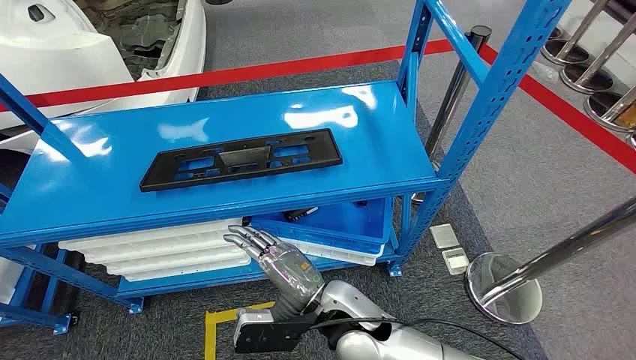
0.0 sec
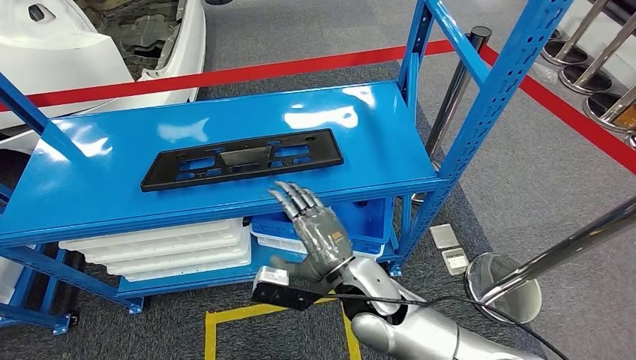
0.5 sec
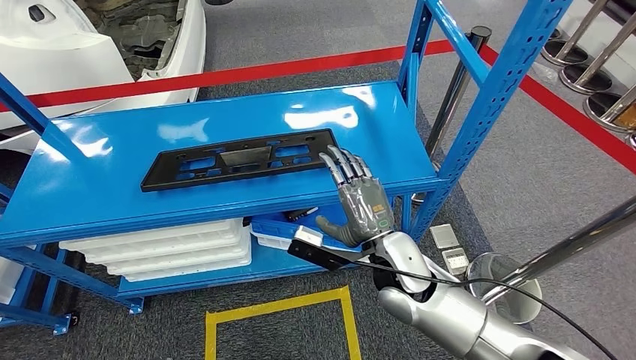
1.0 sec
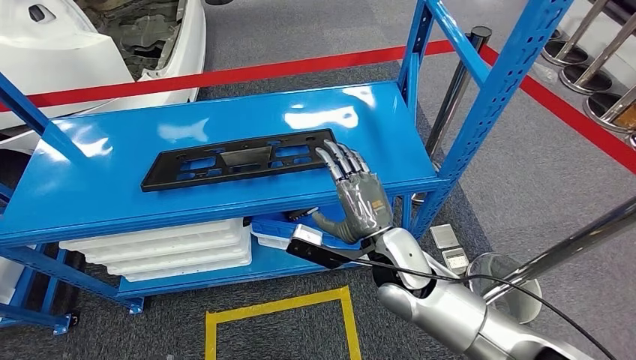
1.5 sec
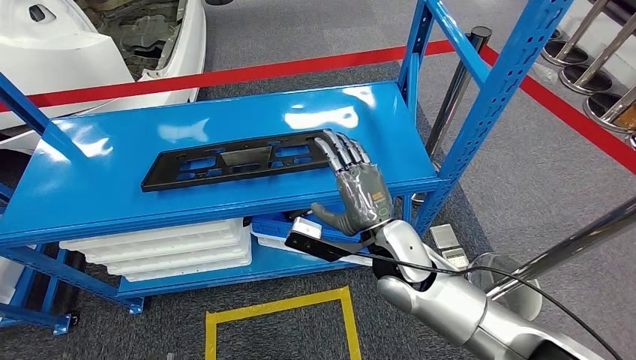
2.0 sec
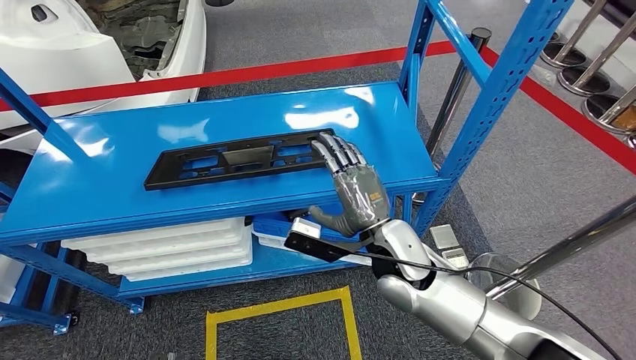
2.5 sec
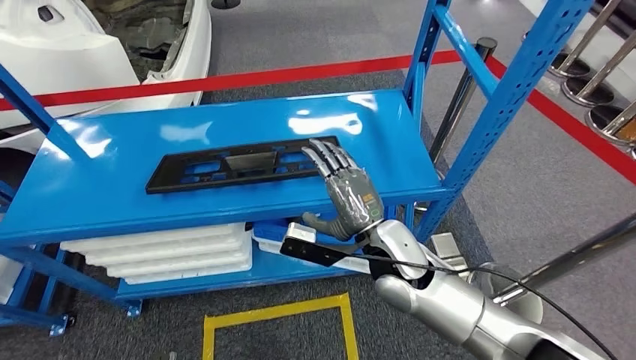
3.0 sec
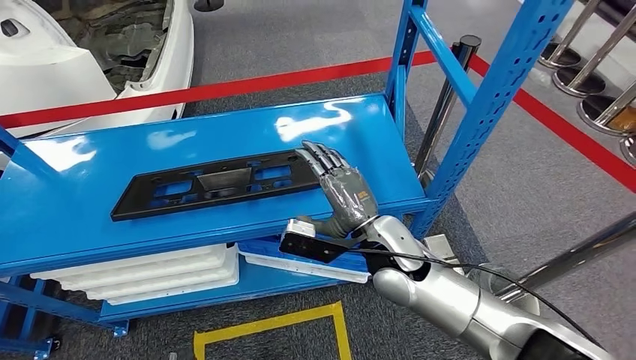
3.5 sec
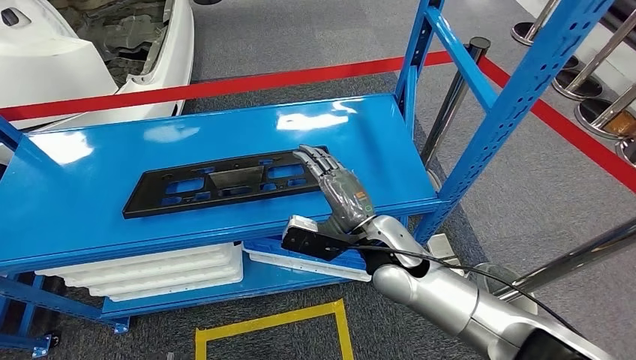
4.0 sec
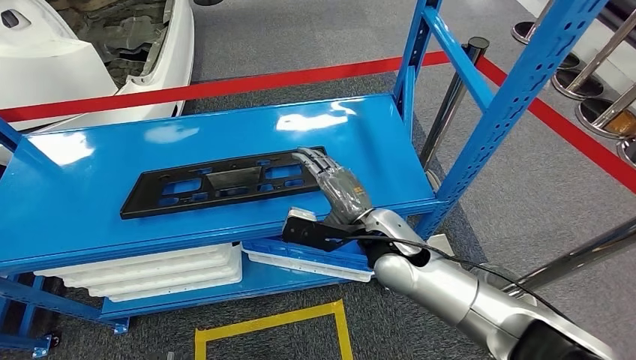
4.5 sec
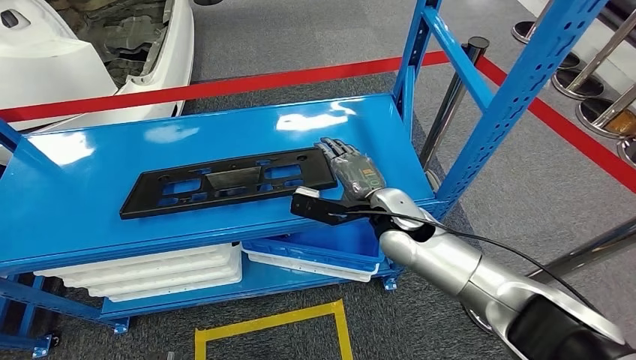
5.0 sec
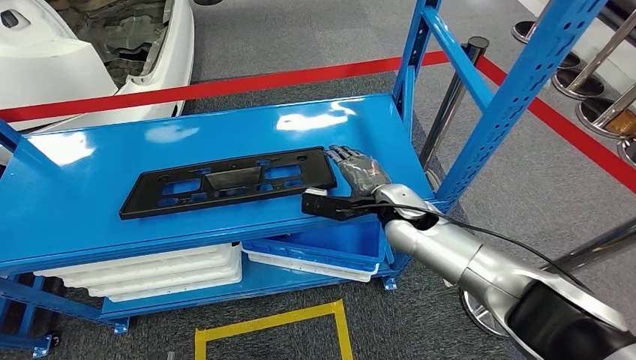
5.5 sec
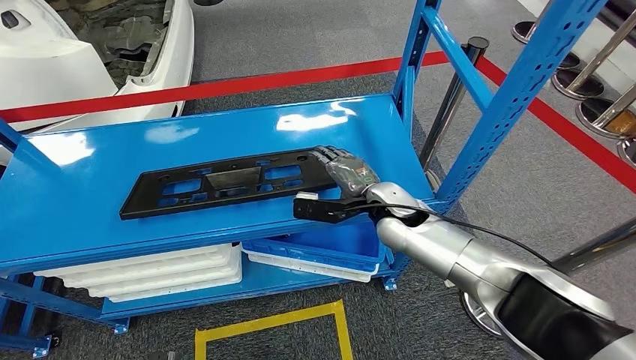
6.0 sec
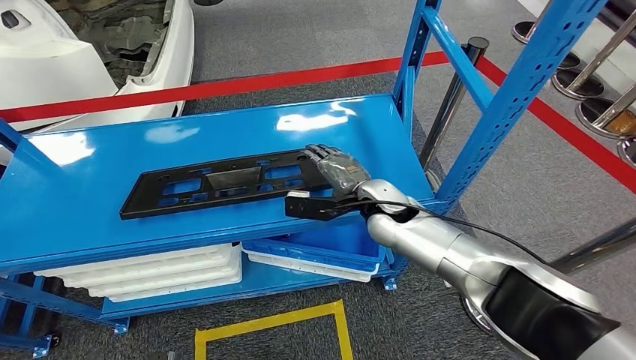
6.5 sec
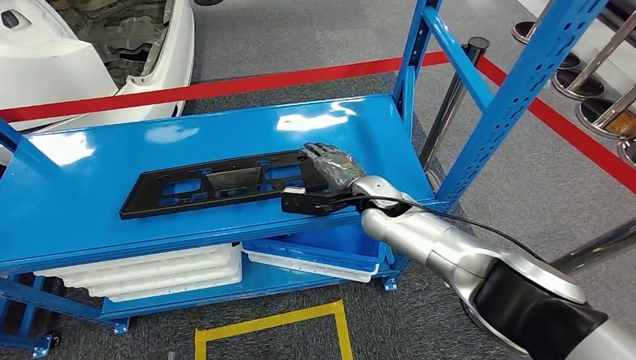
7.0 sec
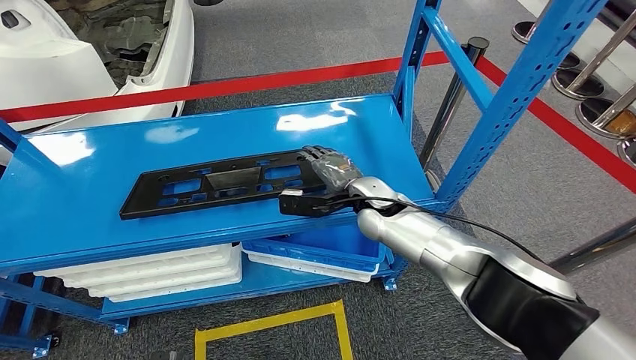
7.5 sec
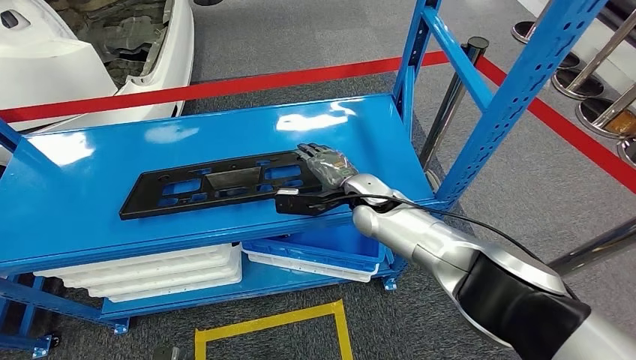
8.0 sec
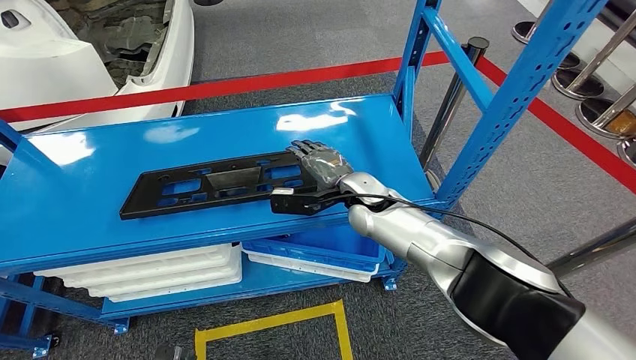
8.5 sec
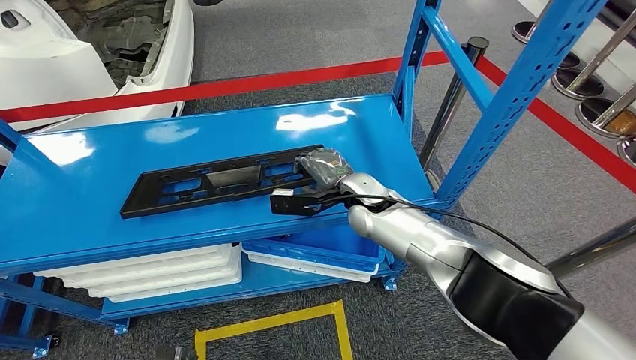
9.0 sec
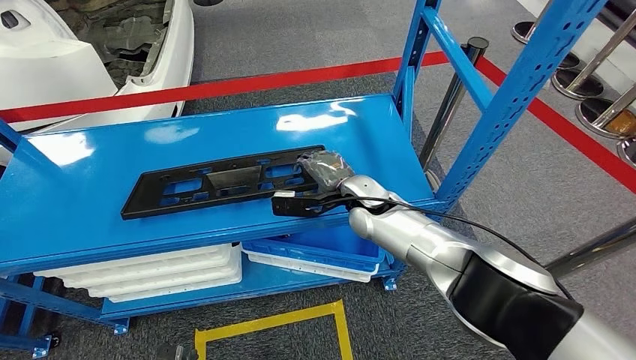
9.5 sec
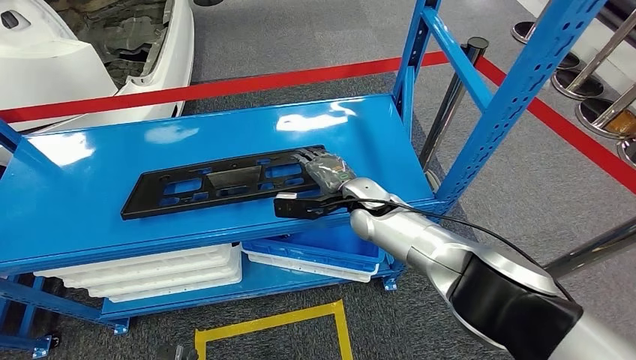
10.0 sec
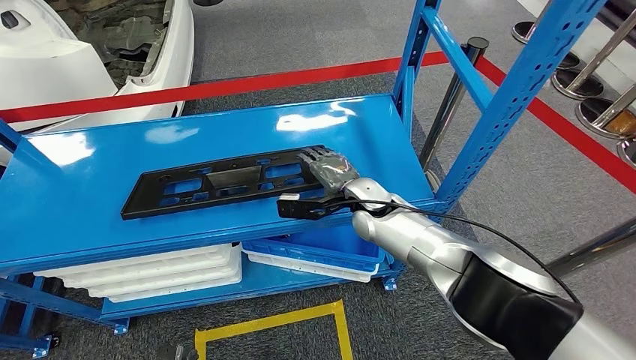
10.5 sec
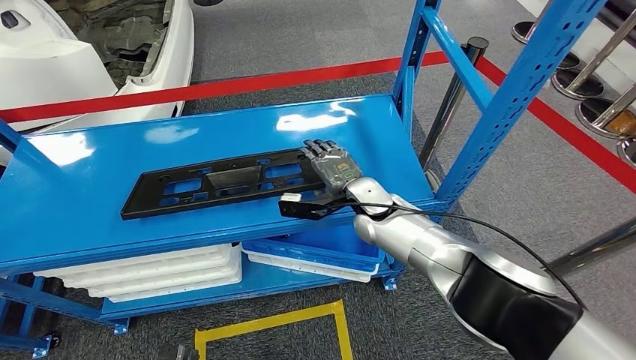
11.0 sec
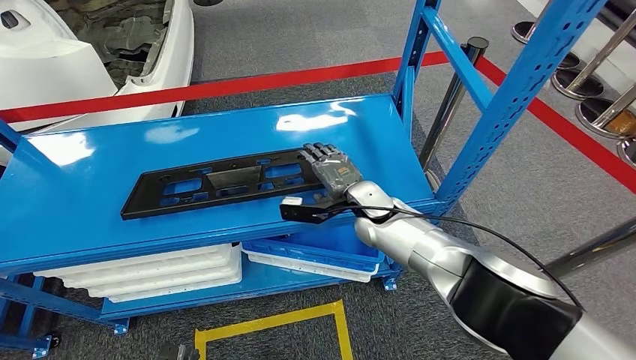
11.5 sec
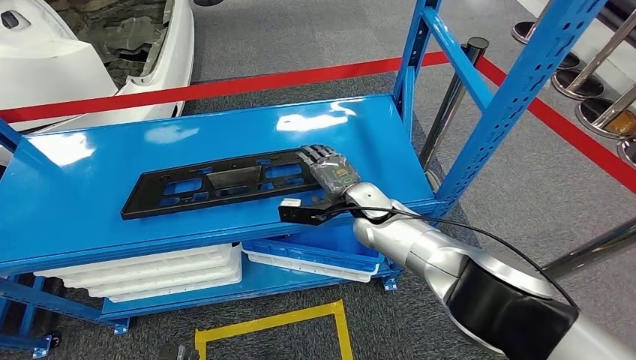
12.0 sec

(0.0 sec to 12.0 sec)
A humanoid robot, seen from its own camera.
4.0 sec - 6.0 sec: The right hand travels forward by roughly 10 cm.
6.0 sec - 8.0 sec: The right hand changes place by some 5 cm.
8.0 sec - 10.0 sec: Neither hand changes place.
10.0 sec - 12.0 sec: There are only small adjustments of the hands.

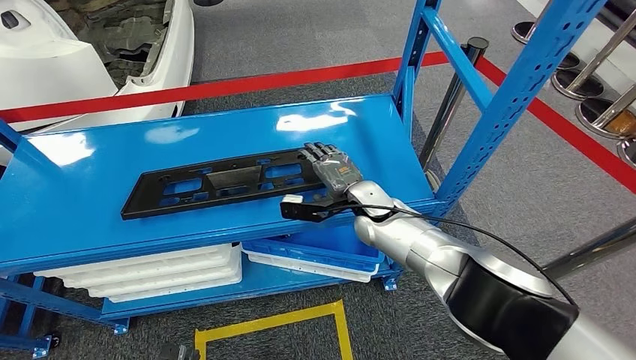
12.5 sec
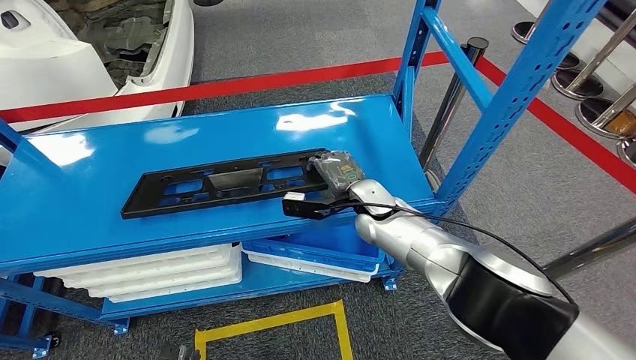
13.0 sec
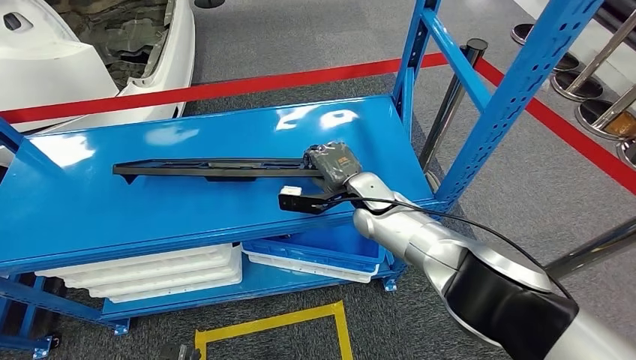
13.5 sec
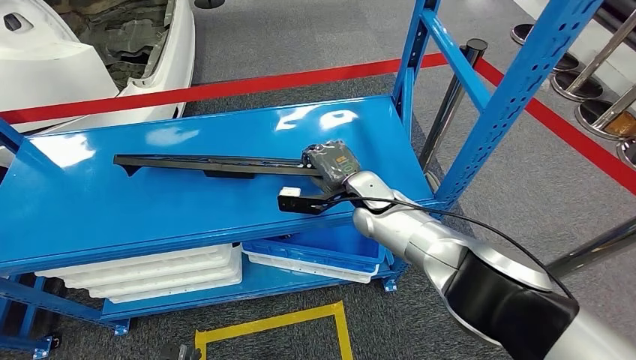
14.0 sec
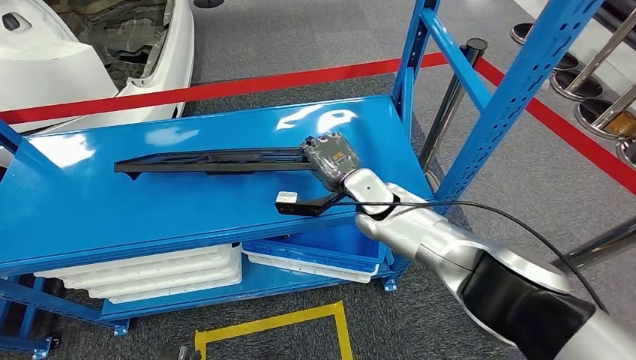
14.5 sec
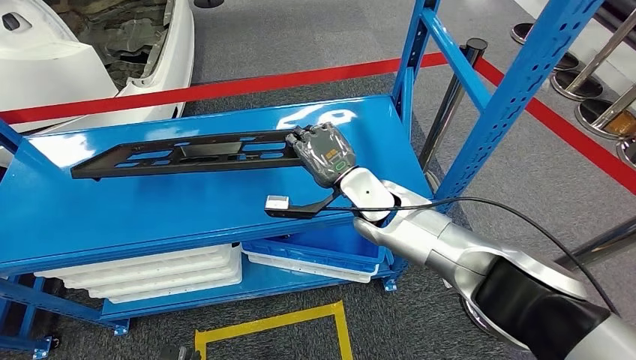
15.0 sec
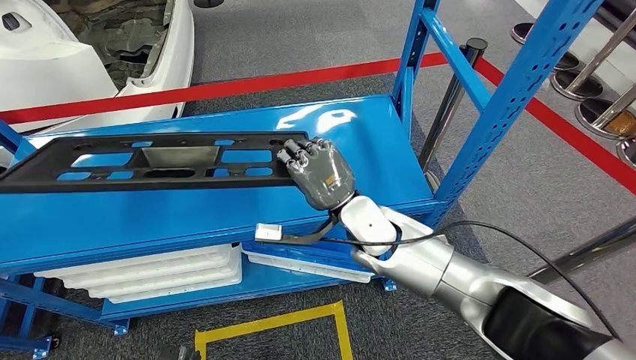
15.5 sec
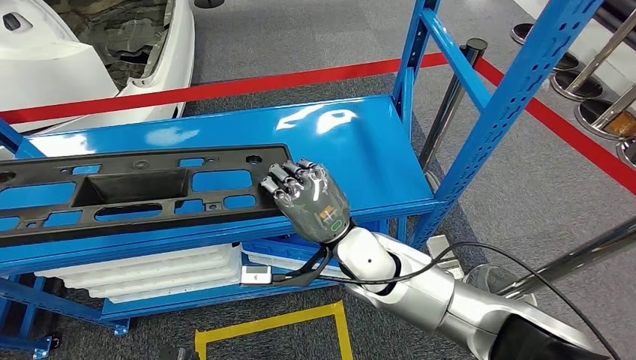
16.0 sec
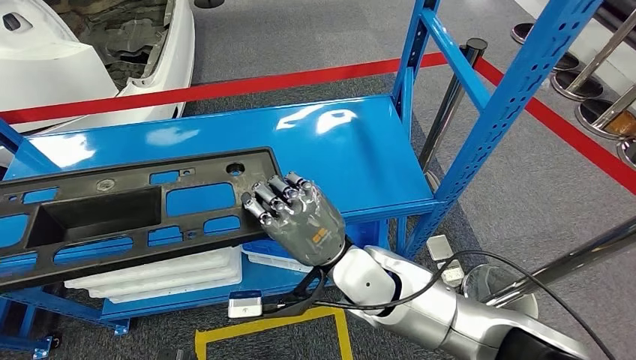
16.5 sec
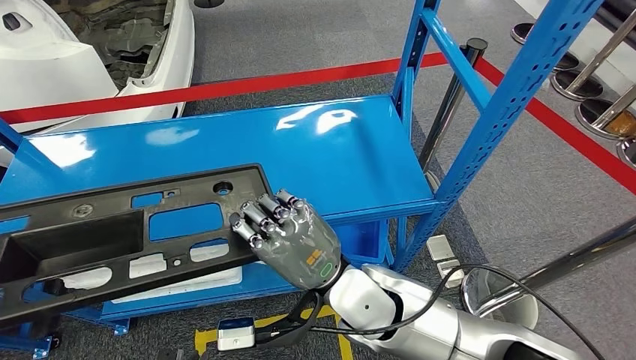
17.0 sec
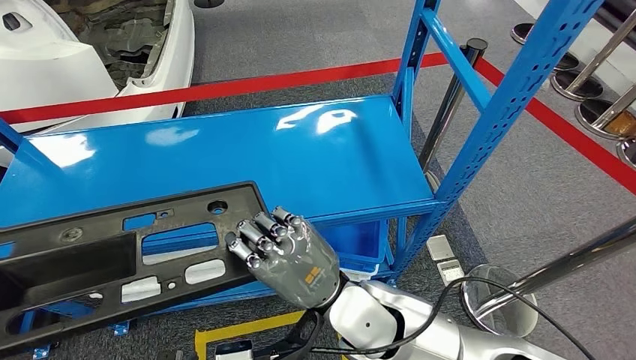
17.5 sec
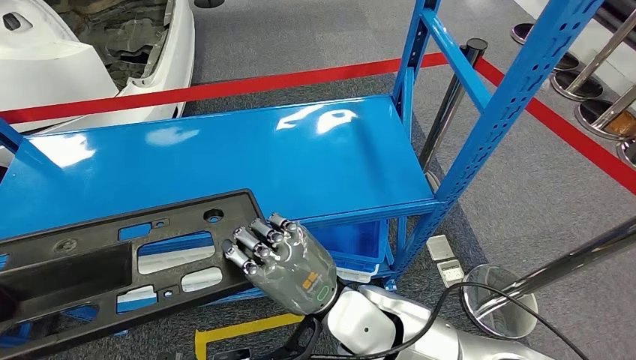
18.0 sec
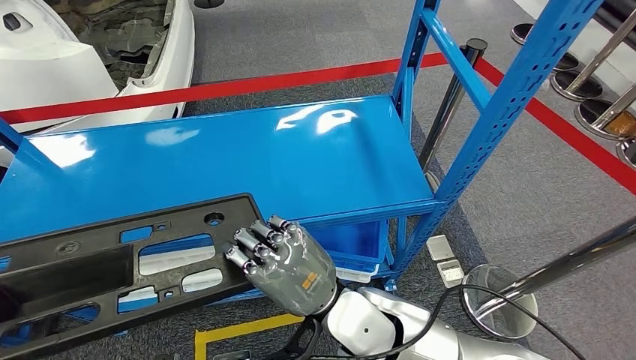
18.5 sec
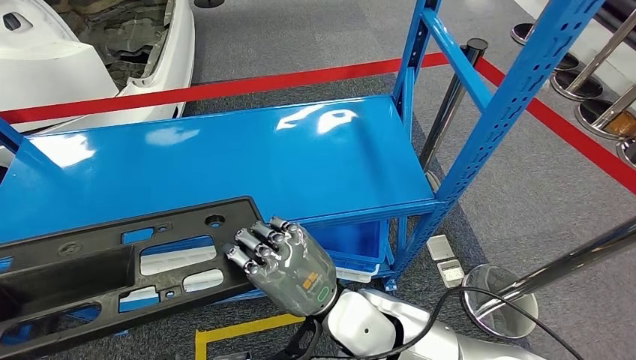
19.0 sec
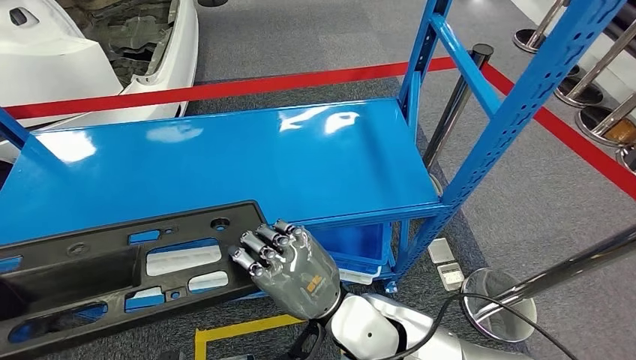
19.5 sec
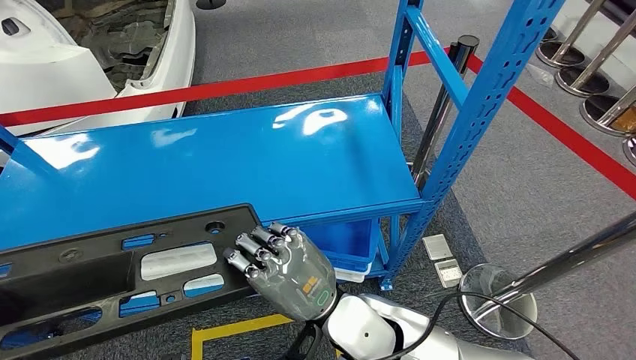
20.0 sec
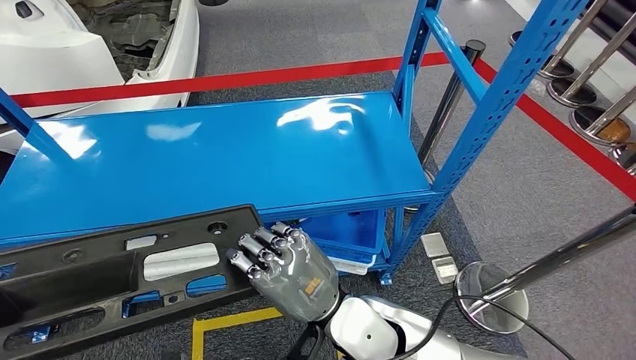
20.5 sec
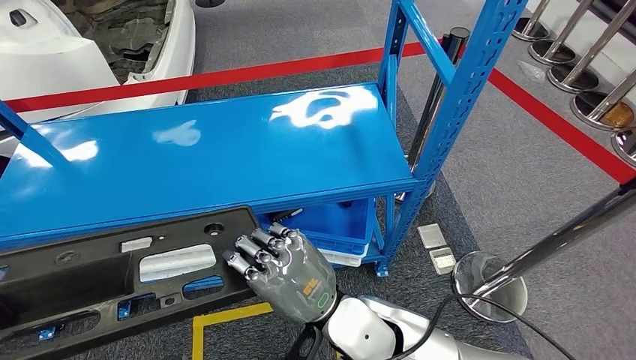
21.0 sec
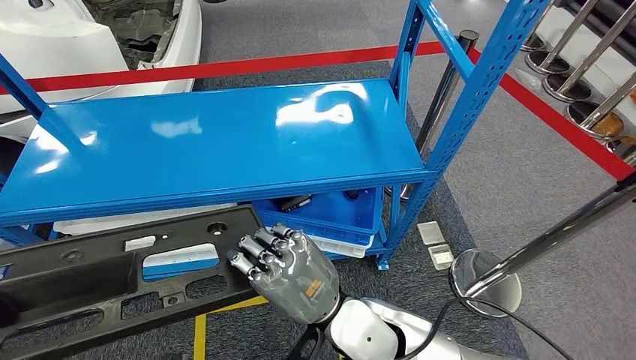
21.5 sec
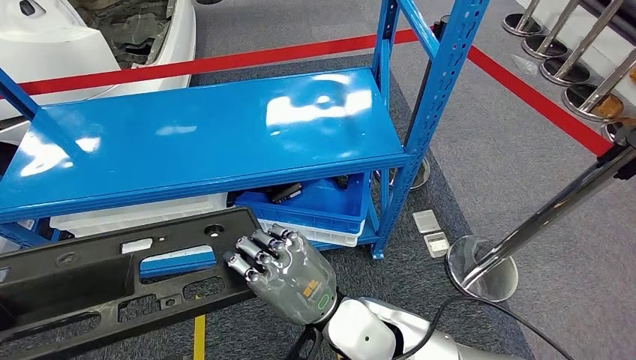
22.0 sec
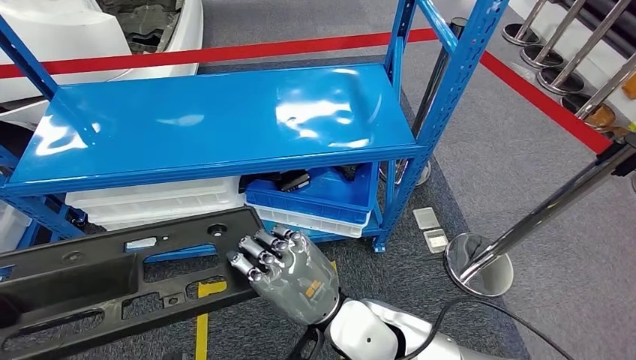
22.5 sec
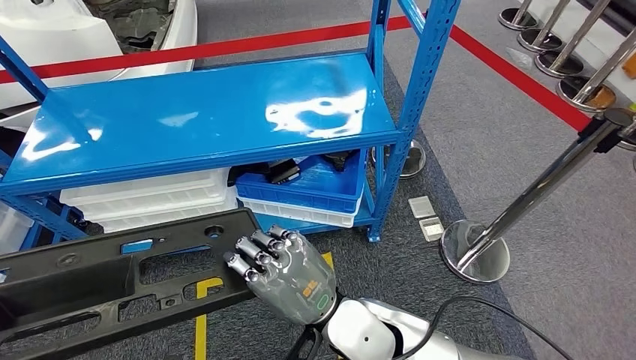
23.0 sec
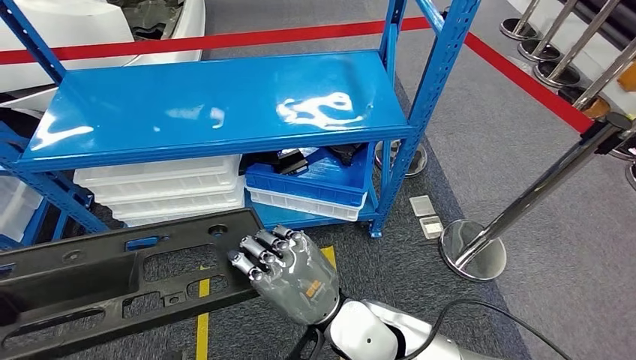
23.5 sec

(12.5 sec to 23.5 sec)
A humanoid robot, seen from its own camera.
Step, 12.5 sec - 21.0 sec: Pick up the large material from the shelf.
12.5 sec - 14.5 sec: There are only small adjustments of the hands.
